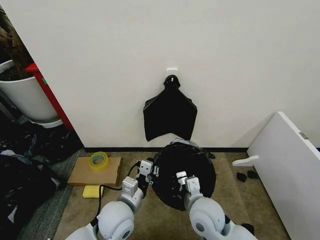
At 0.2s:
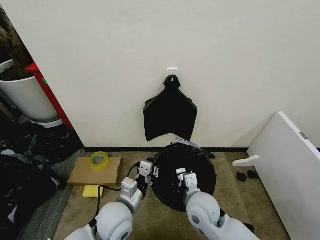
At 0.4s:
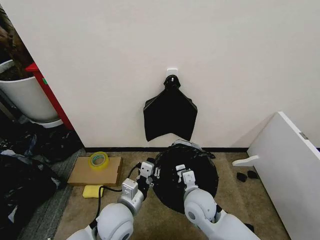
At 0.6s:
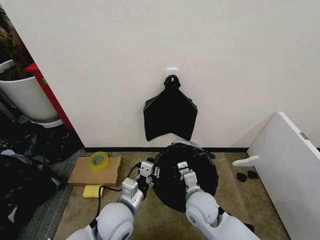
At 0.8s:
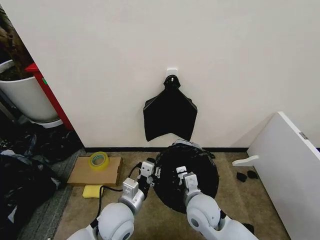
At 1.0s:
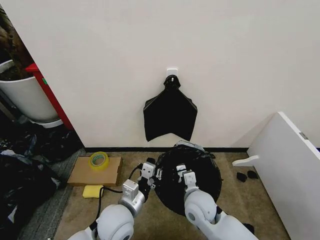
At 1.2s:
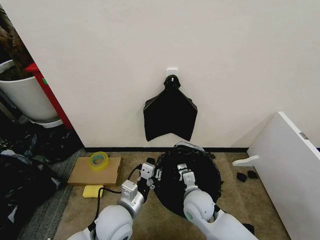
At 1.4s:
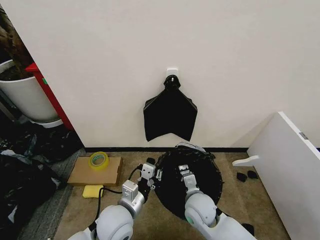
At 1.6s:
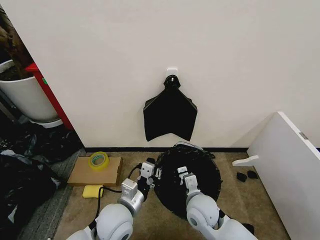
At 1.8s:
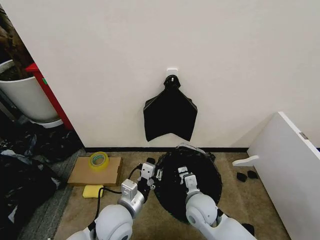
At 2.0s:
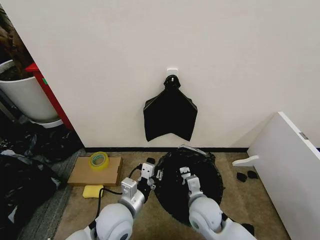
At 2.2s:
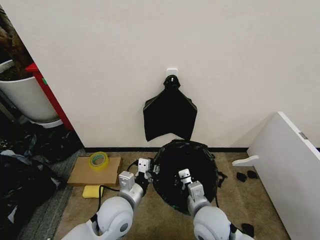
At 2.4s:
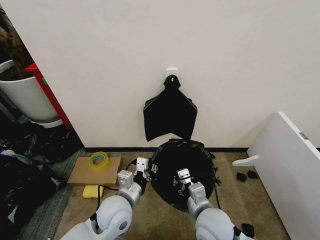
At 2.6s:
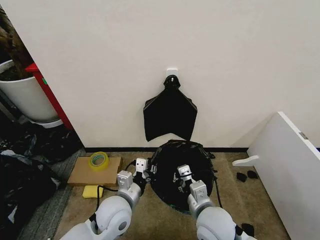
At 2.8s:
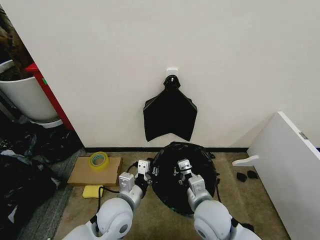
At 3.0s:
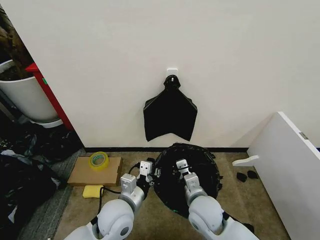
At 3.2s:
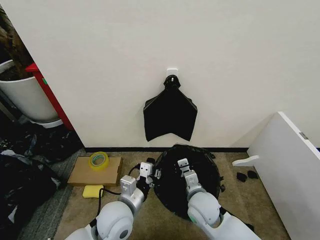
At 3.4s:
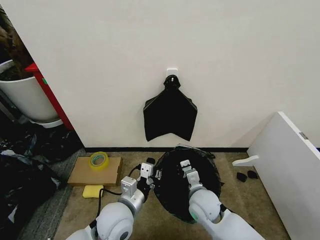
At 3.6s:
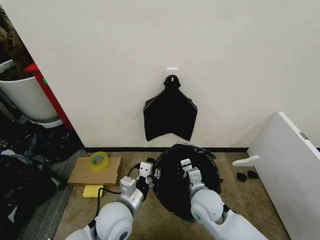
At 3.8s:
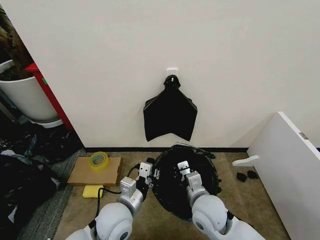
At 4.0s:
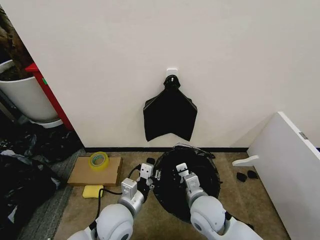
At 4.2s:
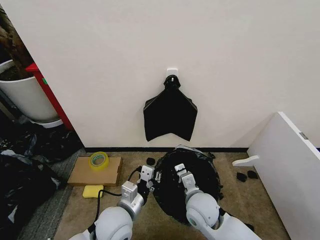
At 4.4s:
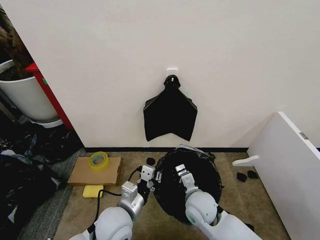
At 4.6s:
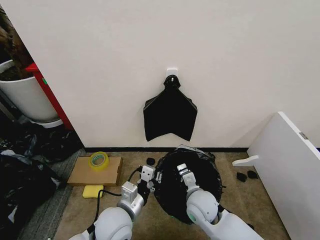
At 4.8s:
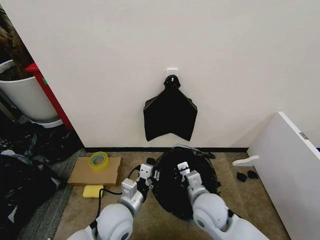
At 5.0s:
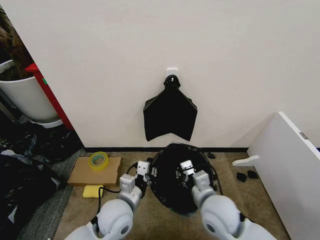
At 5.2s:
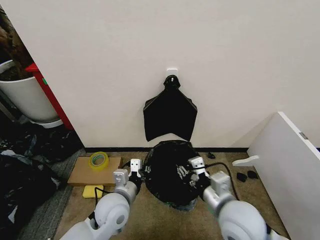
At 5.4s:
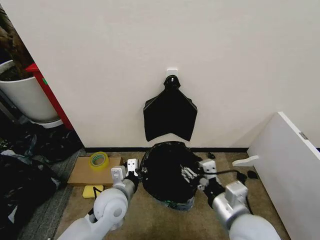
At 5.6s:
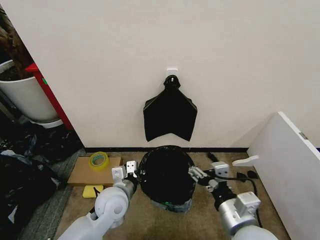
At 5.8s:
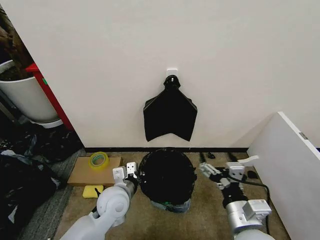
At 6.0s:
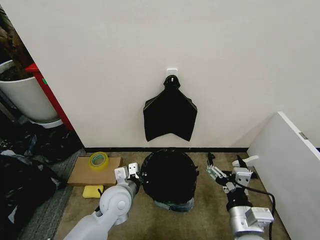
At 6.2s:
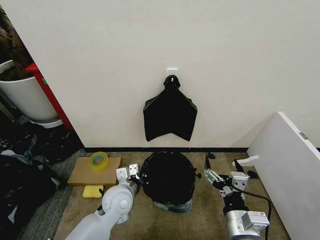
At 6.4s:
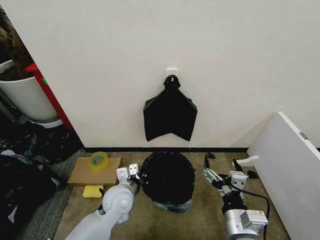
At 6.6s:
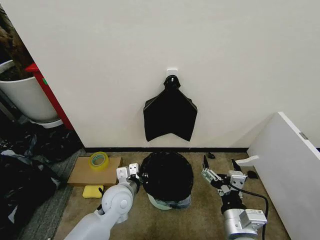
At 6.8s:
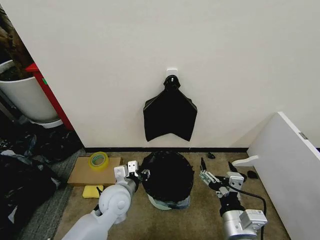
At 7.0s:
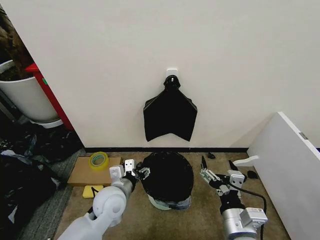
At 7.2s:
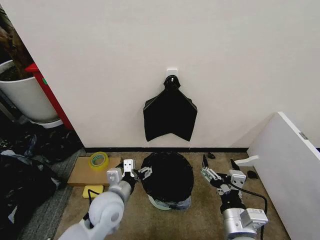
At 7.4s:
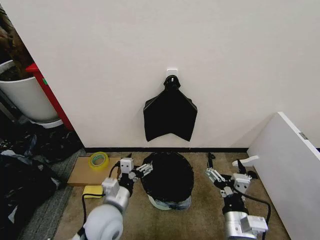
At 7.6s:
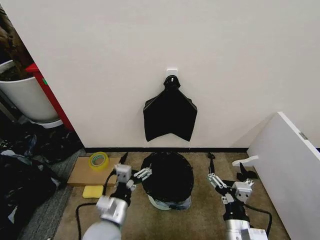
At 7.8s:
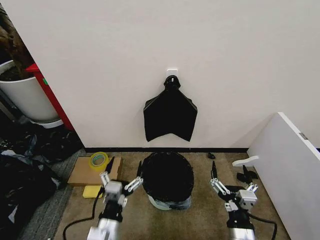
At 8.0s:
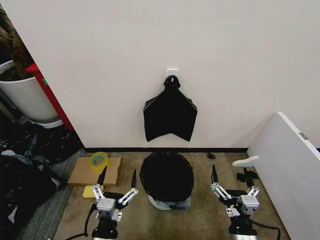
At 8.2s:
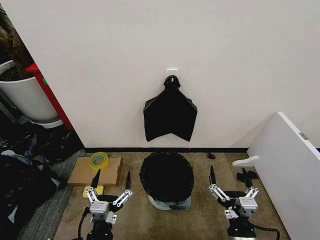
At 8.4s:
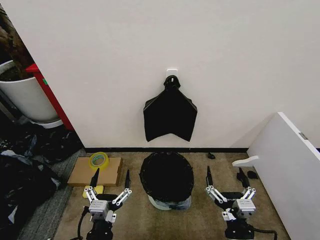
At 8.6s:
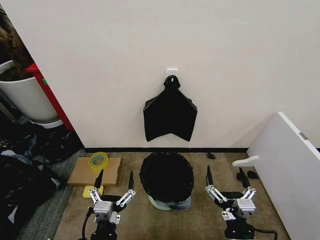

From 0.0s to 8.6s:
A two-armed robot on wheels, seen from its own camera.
Task of the whole recording: Place the garbage bag over the trash bin.
From 0.0s to 1.4s: The right gripper travels downward by some 5 cm.
From 1.4s to 2.8s: The right gripper is displaced upward by some 5 cm.
From 2.8s to 4.4s: The right gripper ends up about 5 cm from where it was.
From 4.4s to 5.8s: The right gripper travels backward, upward and to the right by some 20 cm, and opens, while the left gripper moves forward, some 5 cm.
From 5.8s to 7.2s: The left gripper opens.
From 7.2s to 8.6s: The left gripper heads backward, covering roughly 15 cm, while the right gripper goes about 5 cm downward.

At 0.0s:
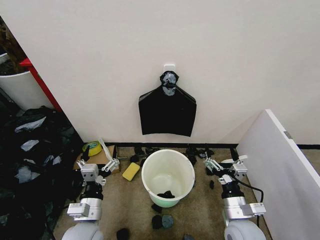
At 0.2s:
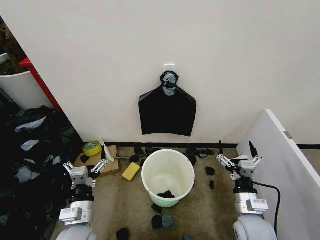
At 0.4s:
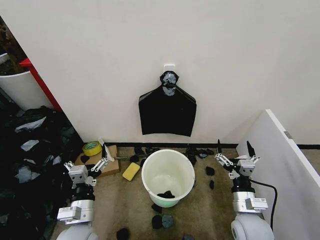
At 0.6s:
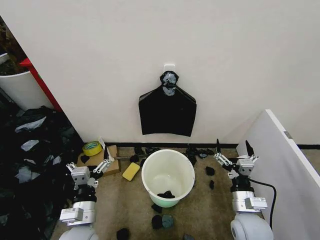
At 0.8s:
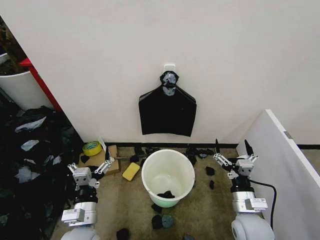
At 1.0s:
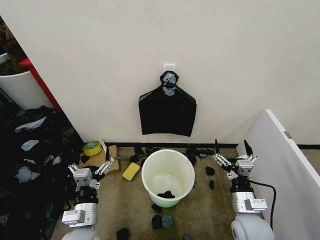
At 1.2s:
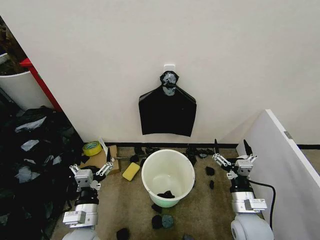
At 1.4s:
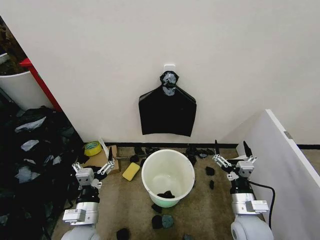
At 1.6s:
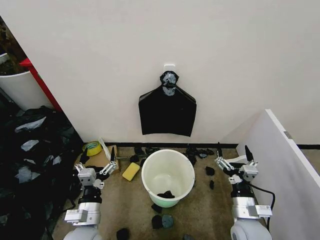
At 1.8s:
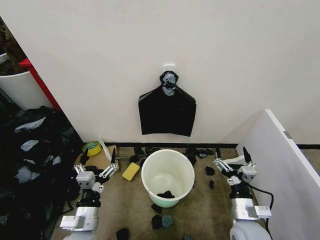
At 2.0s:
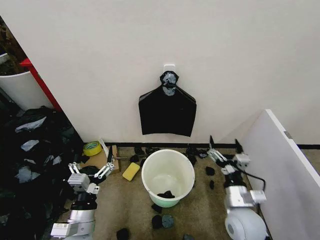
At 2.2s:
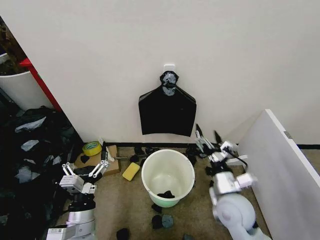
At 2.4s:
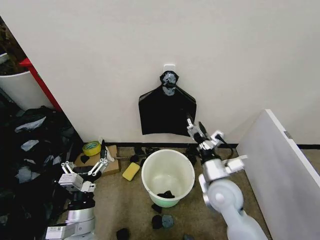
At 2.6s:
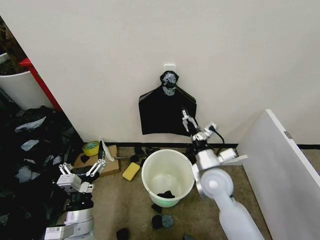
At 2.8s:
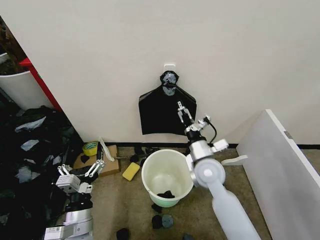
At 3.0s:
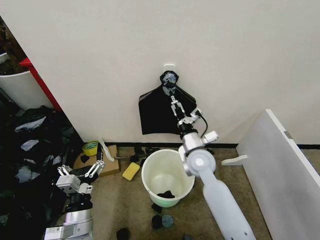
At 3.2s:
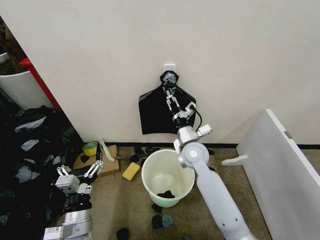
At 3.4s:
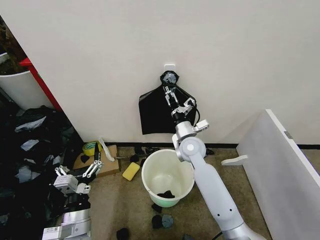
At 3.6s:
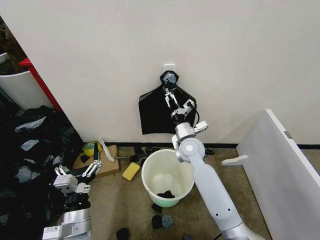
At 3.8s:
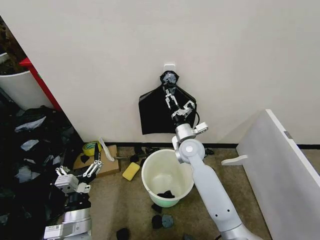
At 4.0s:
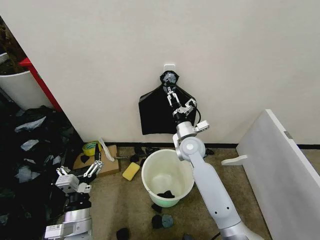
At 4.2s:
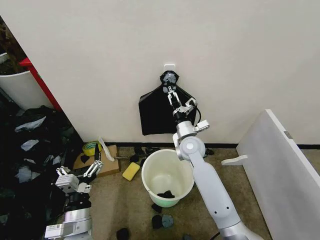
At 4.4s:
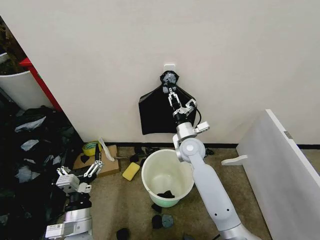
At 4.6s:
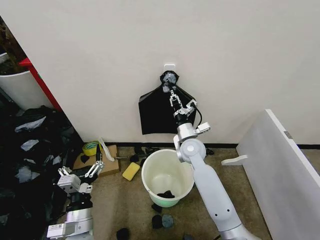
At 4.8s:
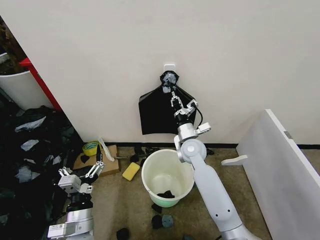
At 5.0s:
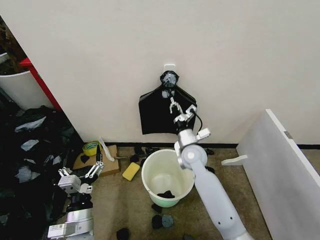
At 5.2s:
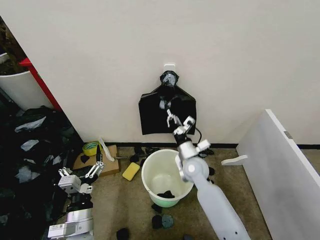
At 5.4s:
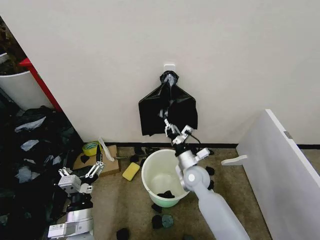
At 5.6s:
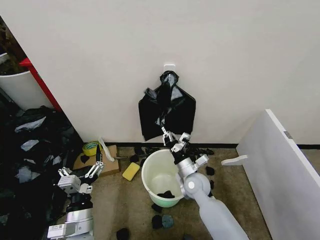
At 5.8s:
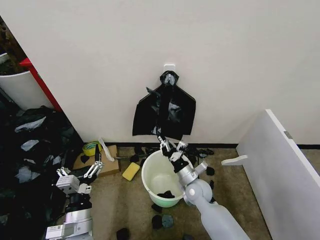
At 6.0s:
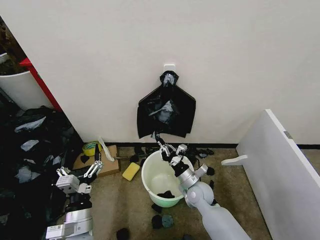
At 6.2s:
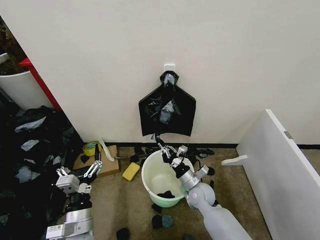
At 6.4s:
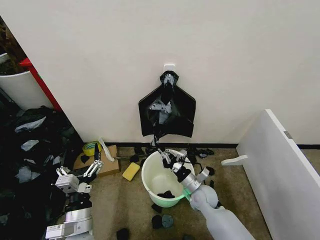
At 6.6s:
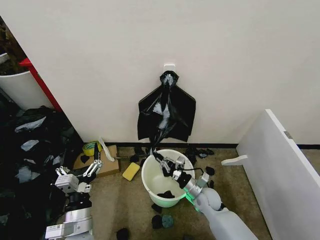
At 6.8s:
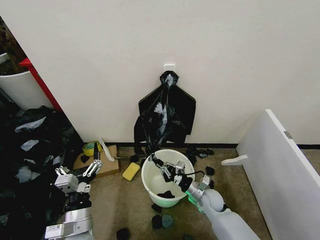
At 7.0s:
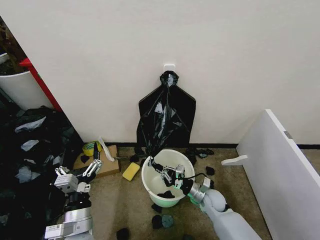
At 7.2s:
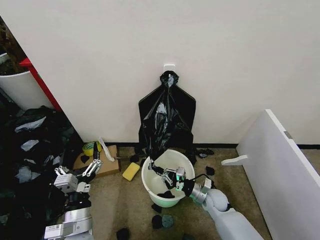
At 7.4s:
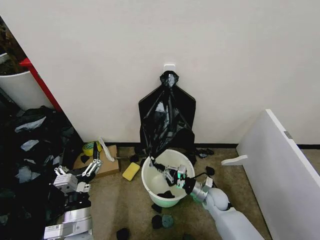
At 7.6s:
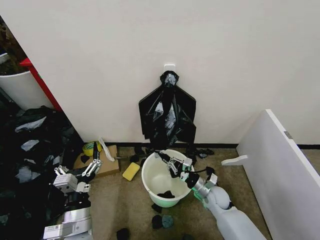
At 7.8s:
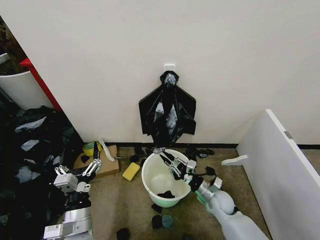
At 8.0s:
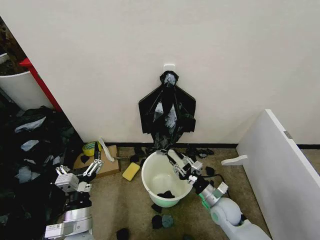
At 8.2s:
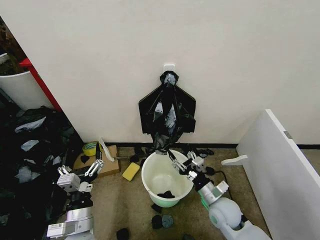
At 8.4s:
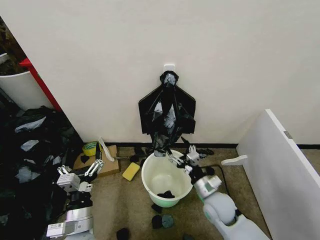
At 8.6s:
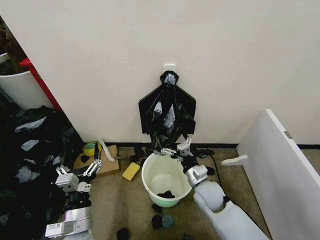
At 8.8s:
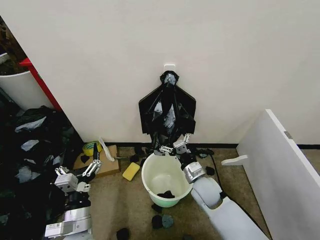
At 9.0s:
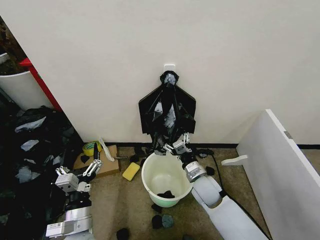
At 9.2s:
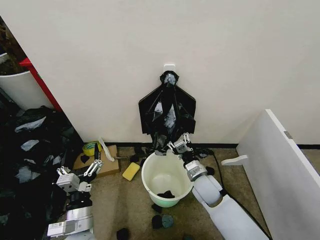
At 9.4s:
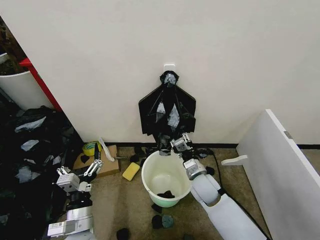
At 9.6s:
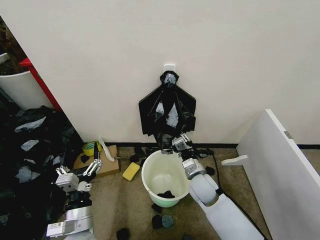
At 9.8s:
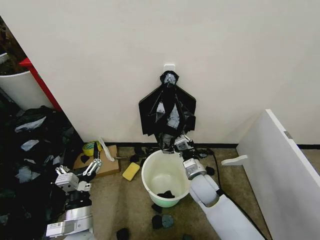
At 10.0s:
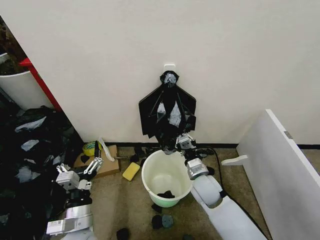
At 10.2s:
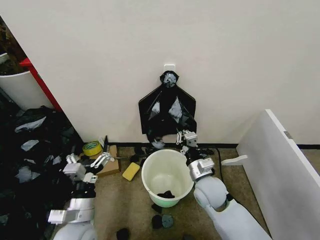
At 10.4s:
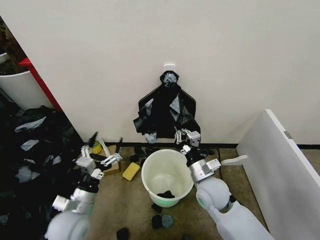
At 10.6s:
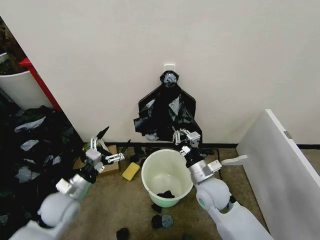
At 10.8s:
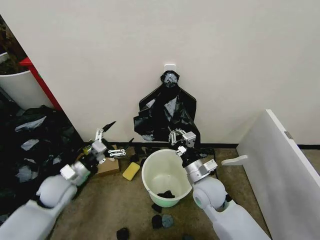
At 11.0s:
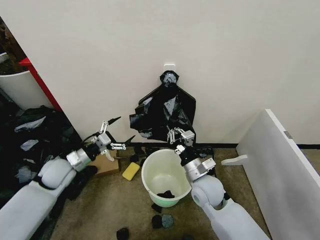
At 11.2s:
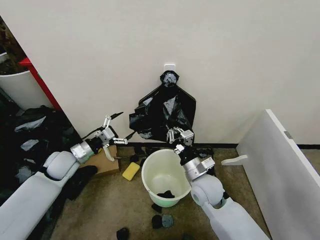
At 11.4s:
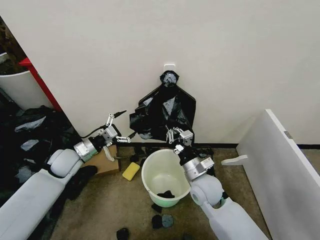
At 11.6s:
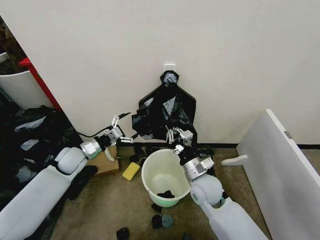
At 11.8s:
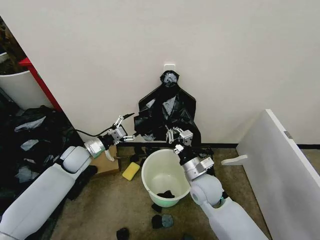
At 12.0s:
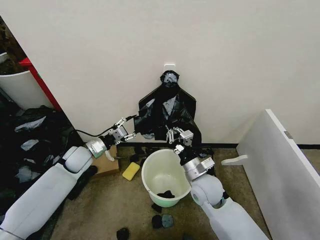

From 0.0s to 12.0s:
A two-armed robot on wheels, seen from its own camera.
Task of the whole recording: Place the garbage bag over the trash bin.
From 1.6s to 3.0s: The right gripper travels forward, to the left and upward by about 25 cm.
From 3.0s to 4.4s: The right gripper heads forward, covering roughly 5 cm, and closes its fingers.
From 4.4s to 6.0s: The right gripper goes some 15 cm downward and backward, and closes its fingers.
From 6.0s to 7.6s: The right gripper is displaced to the right by about 5 cm.
From 7.6s to 9.0s: The right gripper moves upward and to the left, roughly 10 cm, and opens its fingers.
From 9.0s to 10.4s: The right gripper is displaced upward by some 5 cm, and closes. Meanwhile the left gripper moves some 5 cm.
From 10.4s to 12.0s: The left gripper shifts approximately 25 cm forward, and closes up.

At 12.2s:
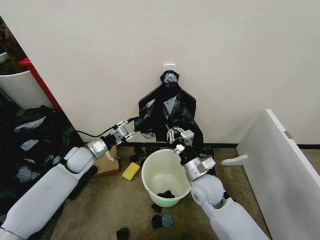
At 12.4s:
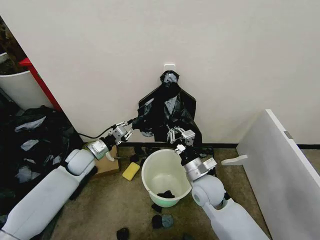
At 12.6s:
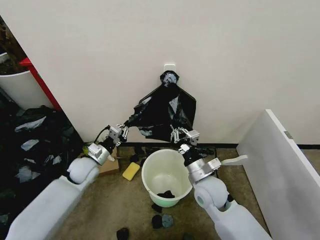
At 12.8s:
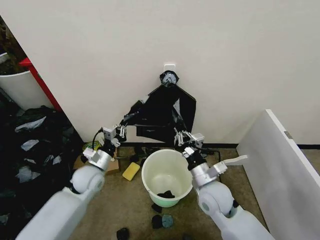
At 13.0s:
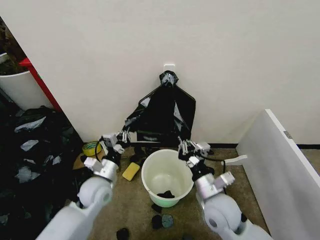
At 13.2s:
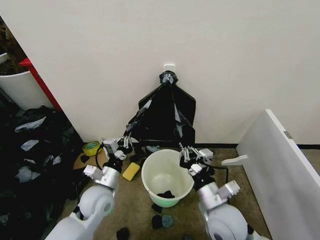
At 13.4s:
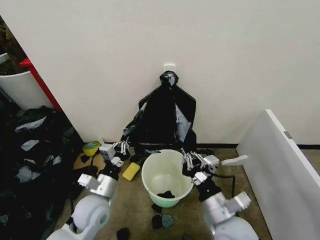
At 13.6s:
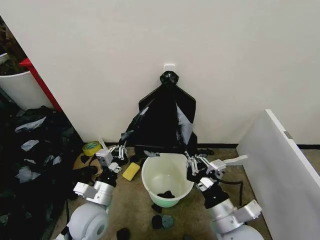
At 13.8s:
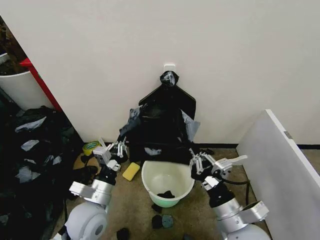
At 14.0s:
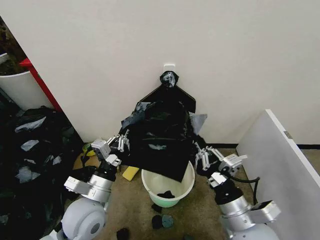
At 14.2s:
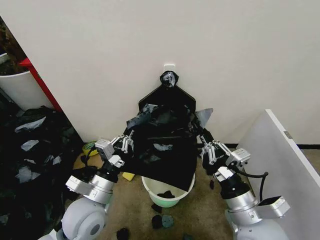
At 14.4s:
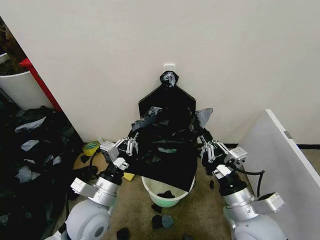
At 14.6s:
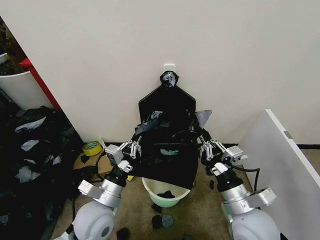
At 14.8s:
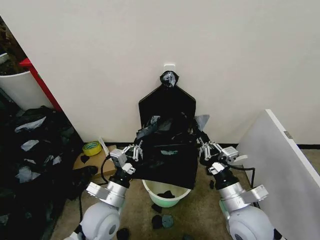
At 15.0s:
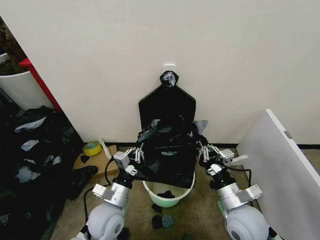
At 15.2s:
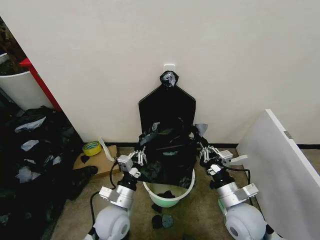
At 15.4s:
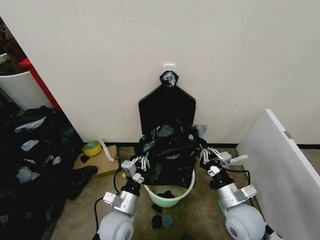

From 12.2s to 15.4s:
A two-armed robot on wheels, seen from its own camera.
Task of the whole recording: Place the garbage bag over the trash bin.
From 12.2s to 13.8s: The right gripper travels backward by roughly 15 cm; the left gripper heads backward and to the right, covering roughly 25 cm, and closes up.
From 13.8s to 15.4s: The right gripper travels downward and forward by some 10 cm. The left gripper moves downward and to the right, about 10 cm.
